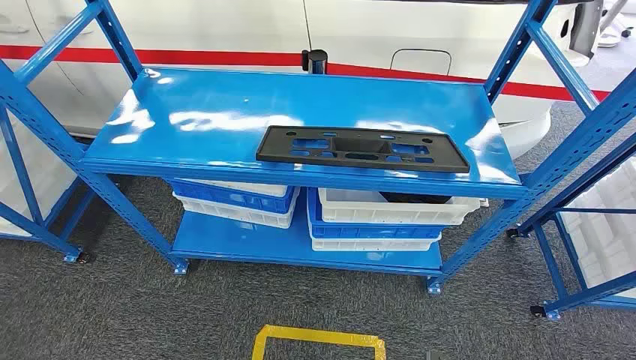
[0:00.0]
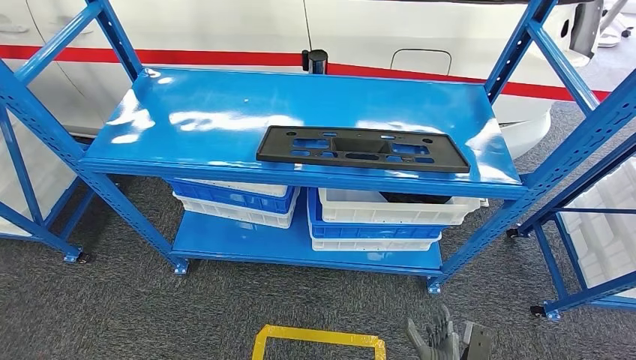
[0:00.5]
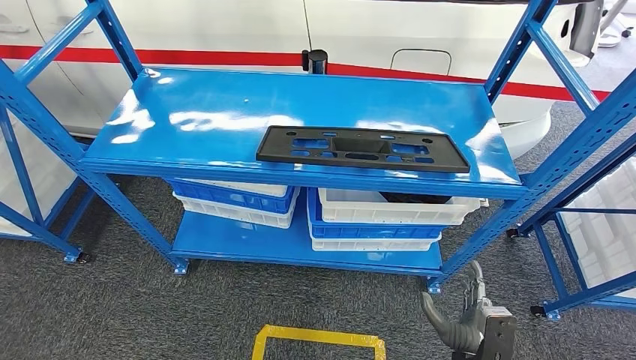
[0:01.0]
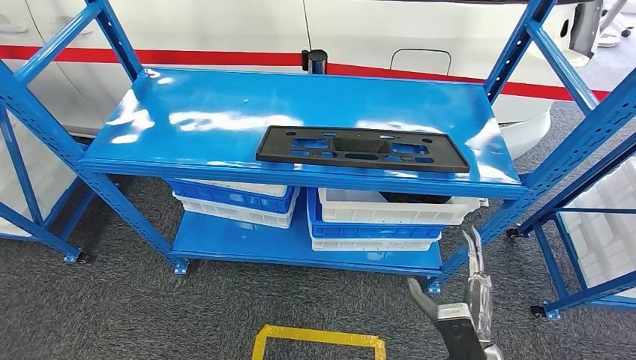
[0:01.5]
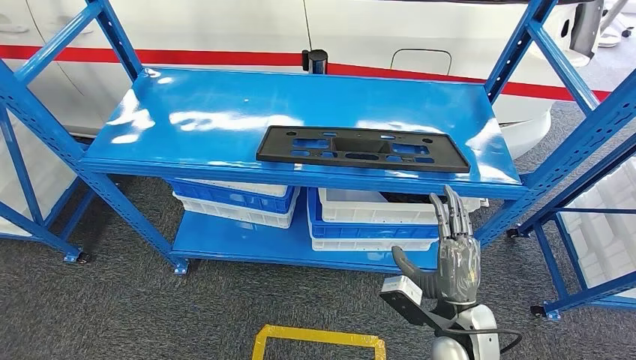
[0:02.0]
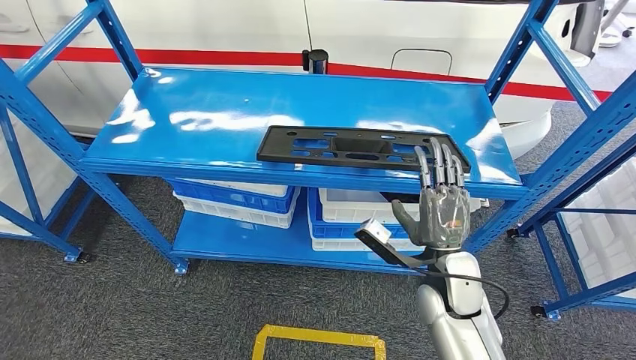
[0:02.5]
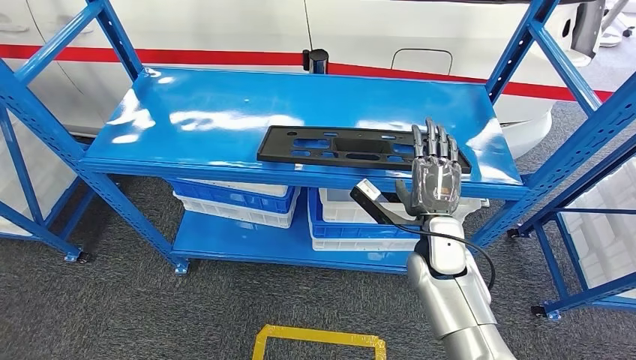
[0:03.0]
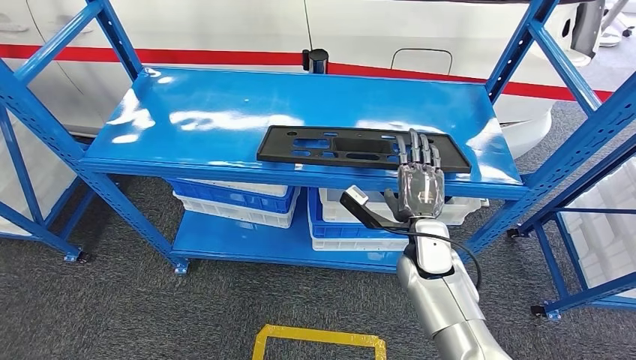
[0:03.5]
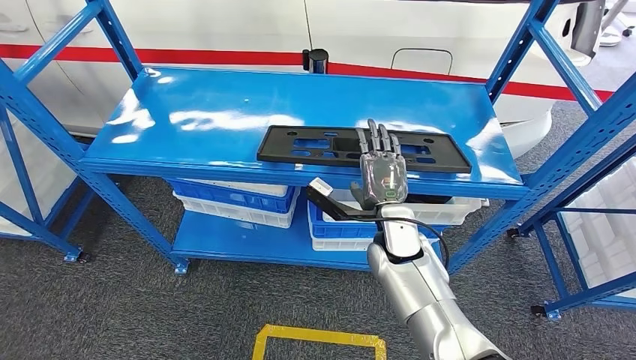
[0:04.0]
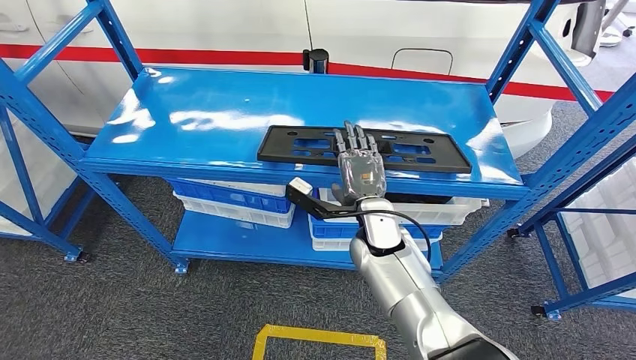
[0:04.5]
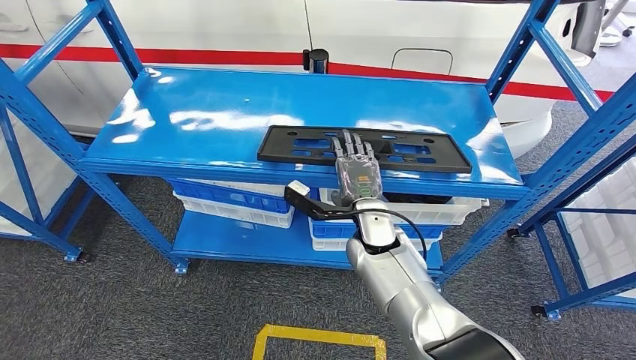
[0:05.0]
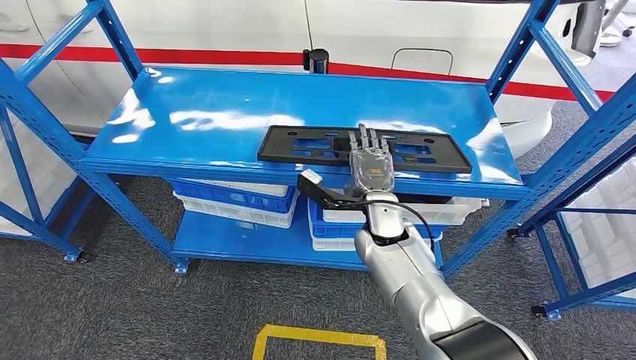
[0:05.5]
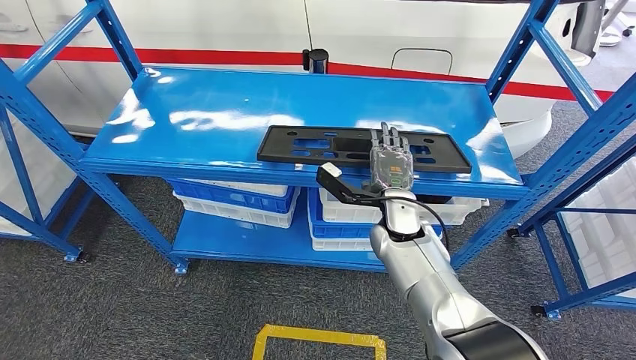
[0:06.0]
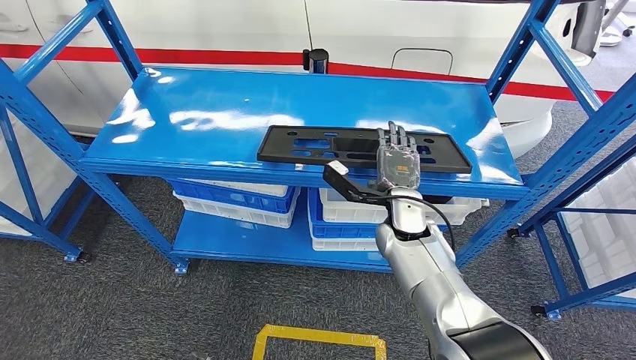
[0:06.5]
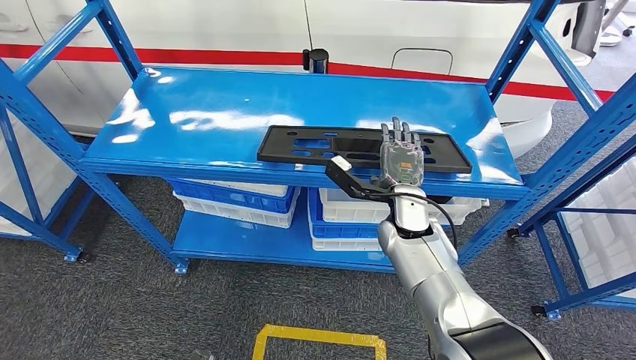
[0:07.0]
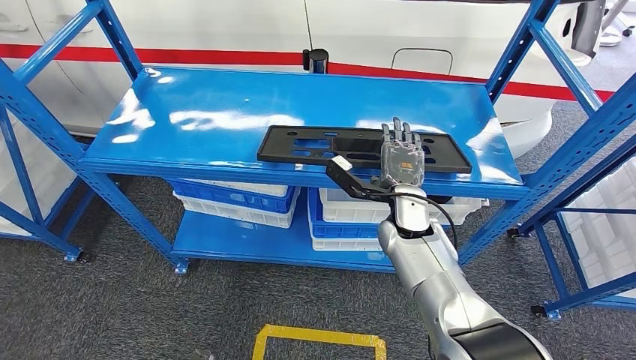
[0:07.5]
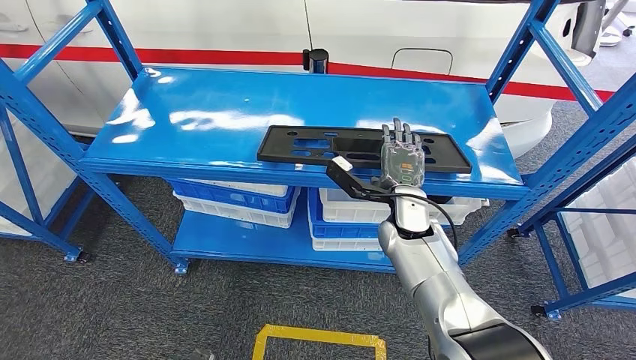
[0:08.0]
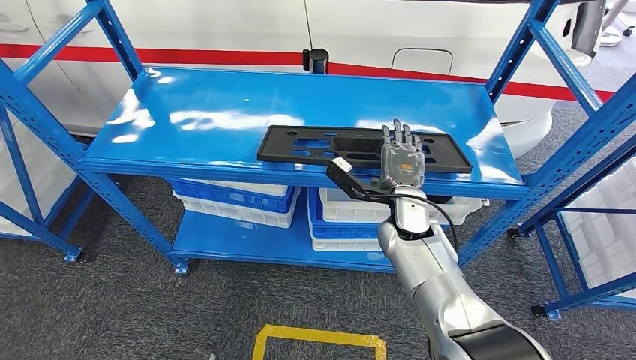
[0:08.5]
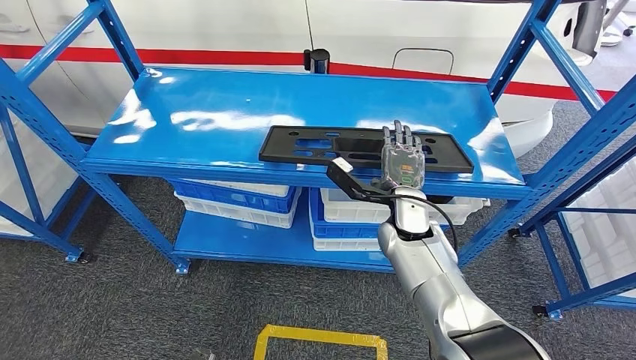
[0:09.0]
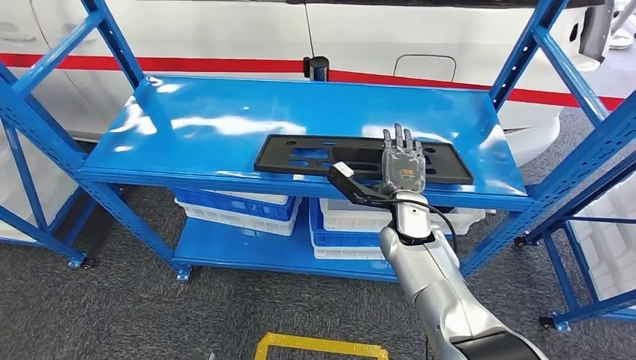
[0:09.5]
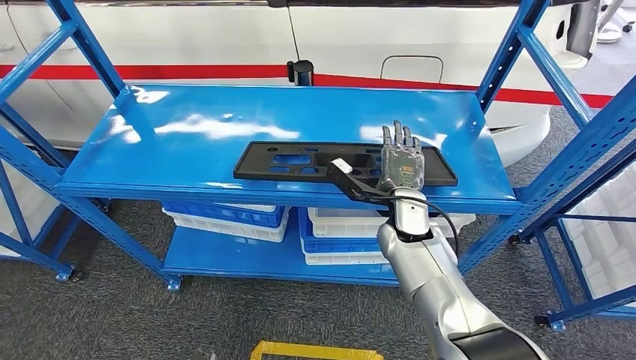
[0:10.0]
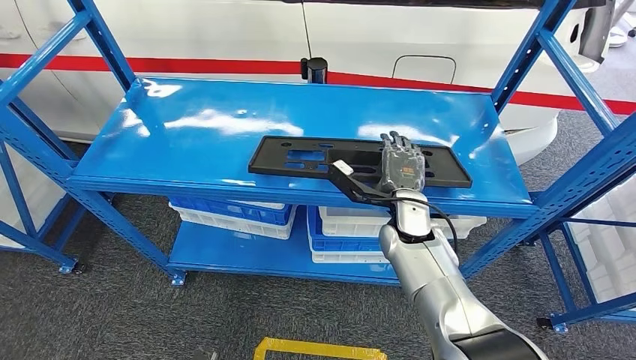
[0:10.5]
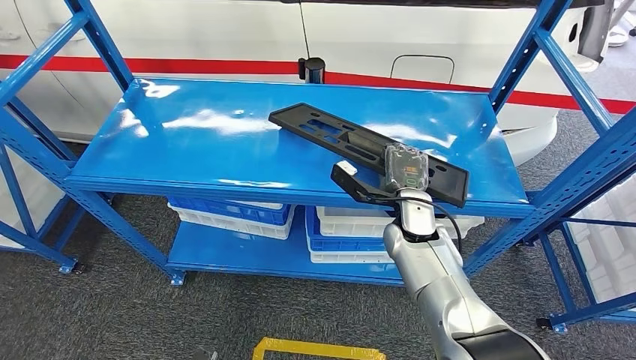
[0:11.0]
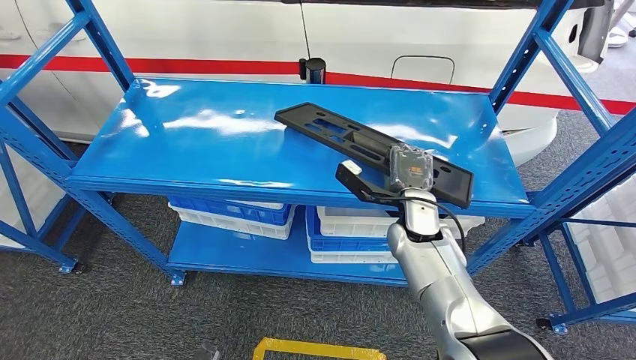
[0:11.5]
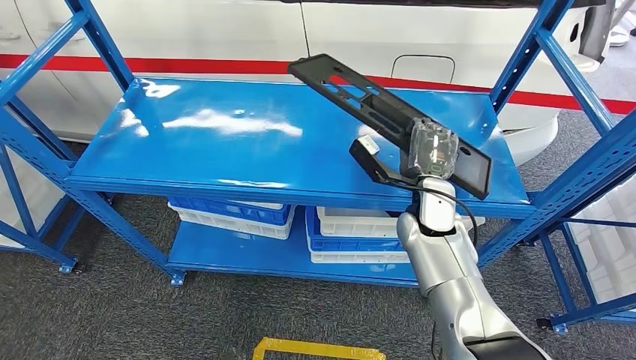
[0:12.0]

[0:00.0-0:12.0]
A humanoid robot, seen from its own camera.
0:02.0 to 0:04.0: The right hand shifts about 15 cm forward and to the left.
0:04.0 to 0:06.0: There are only small adjustments of the hands.
0:06.0 to 0:08.0: Both hands stay about where they are.

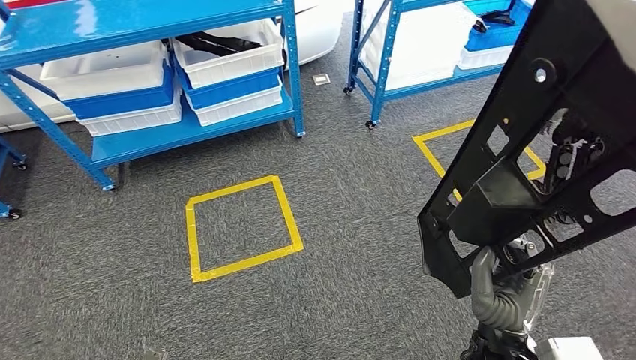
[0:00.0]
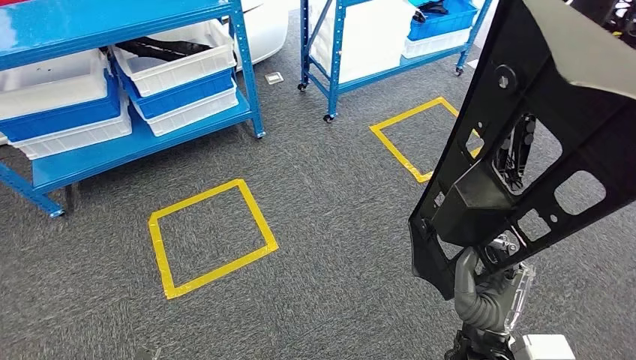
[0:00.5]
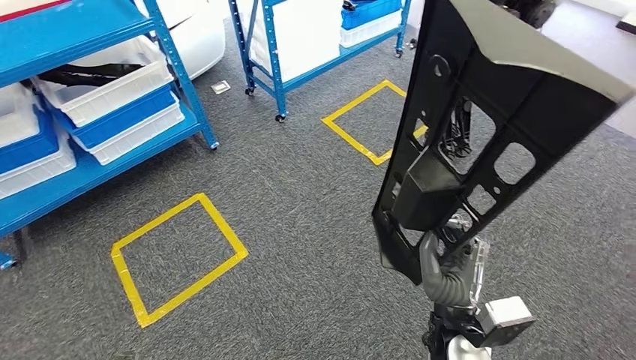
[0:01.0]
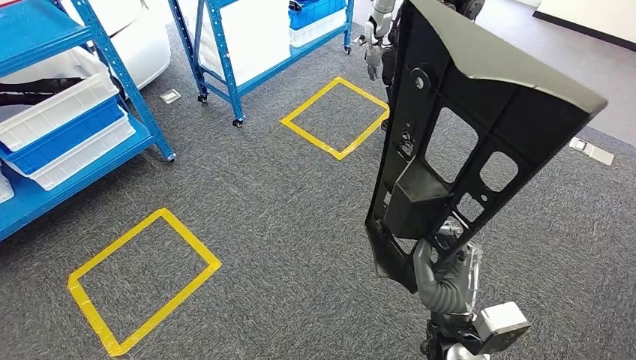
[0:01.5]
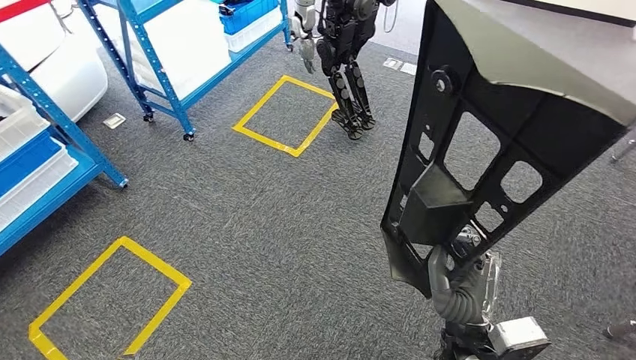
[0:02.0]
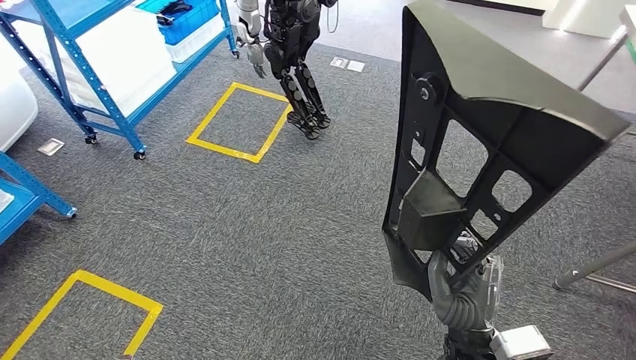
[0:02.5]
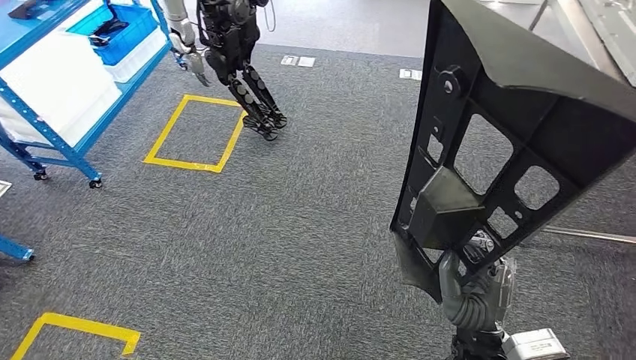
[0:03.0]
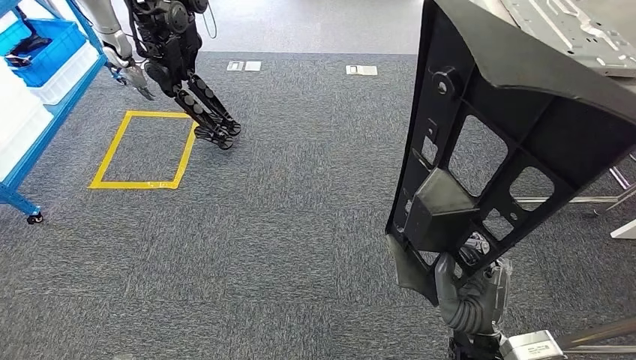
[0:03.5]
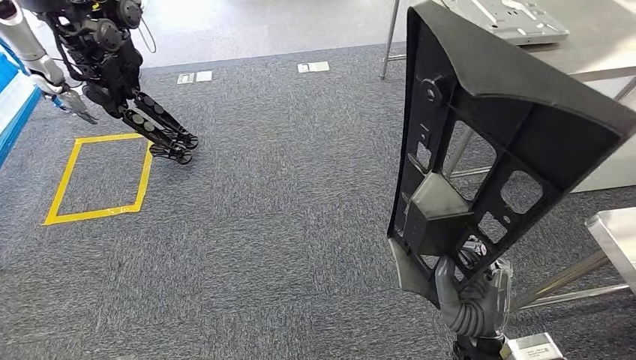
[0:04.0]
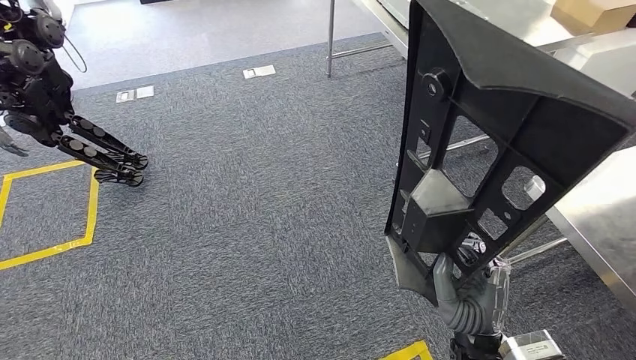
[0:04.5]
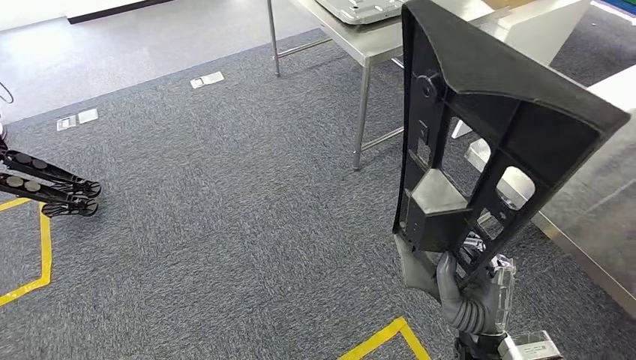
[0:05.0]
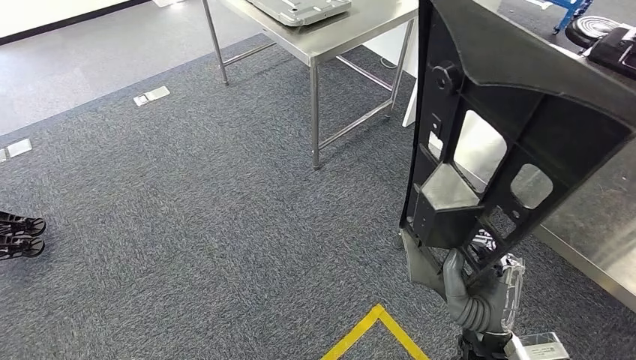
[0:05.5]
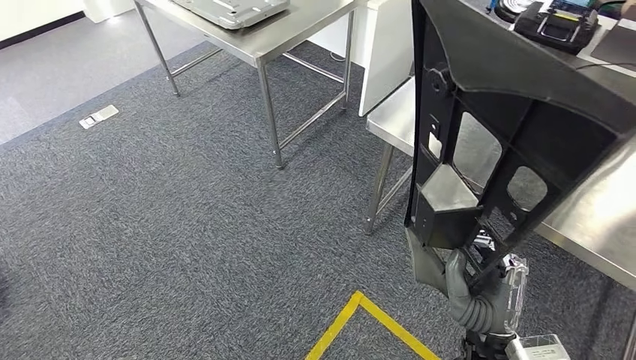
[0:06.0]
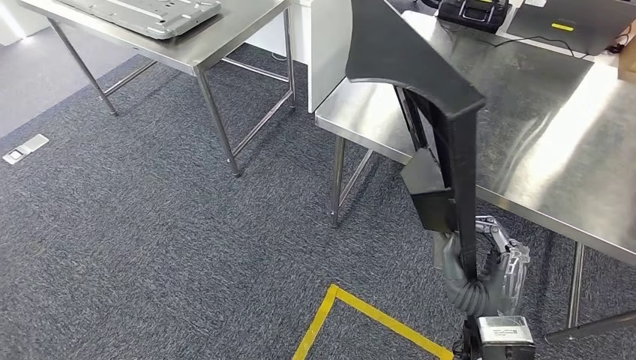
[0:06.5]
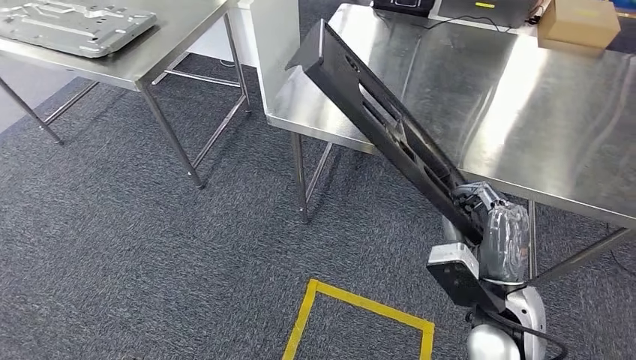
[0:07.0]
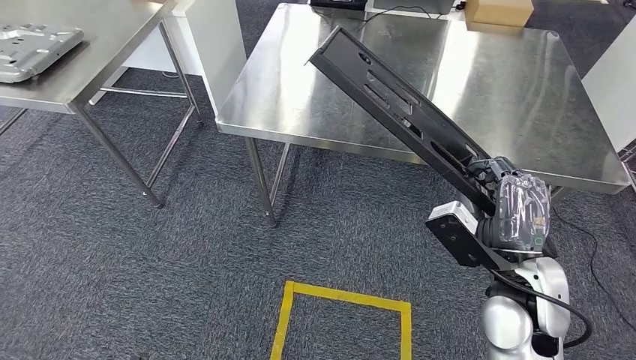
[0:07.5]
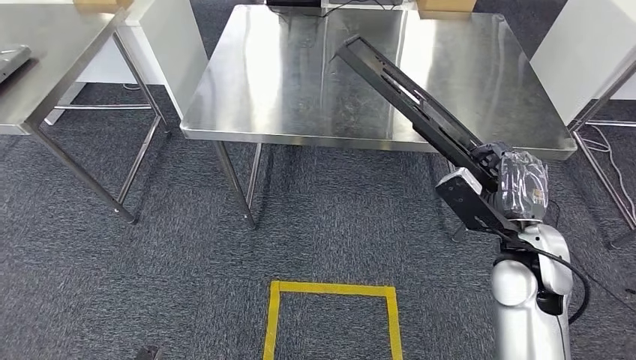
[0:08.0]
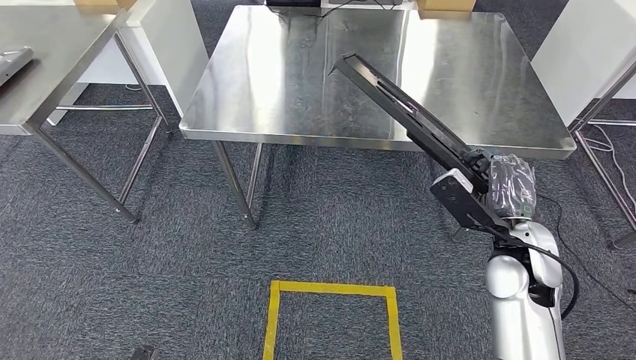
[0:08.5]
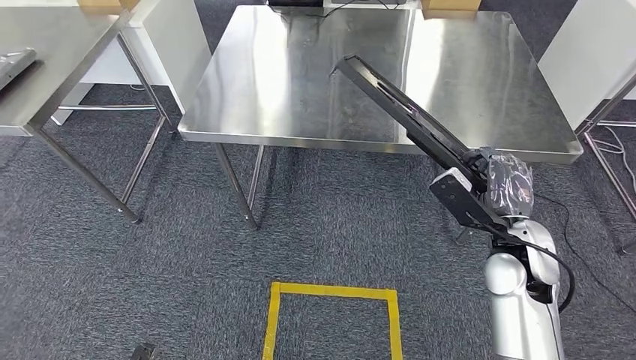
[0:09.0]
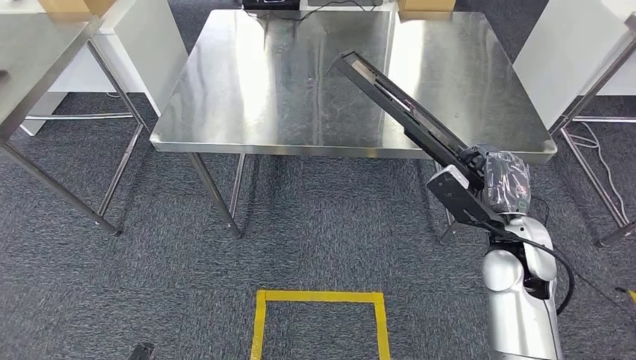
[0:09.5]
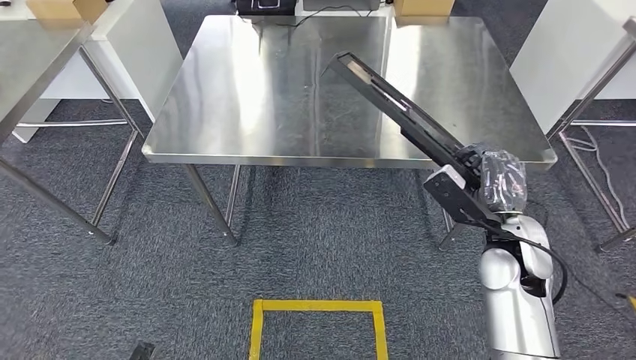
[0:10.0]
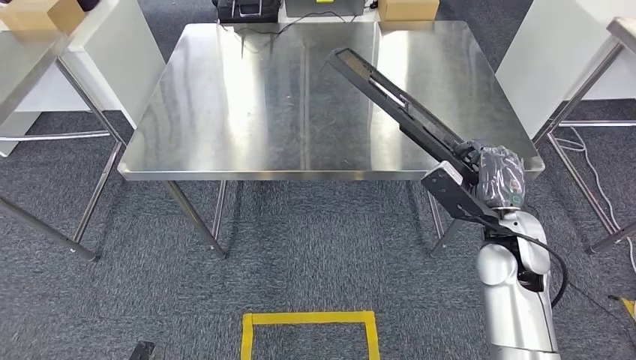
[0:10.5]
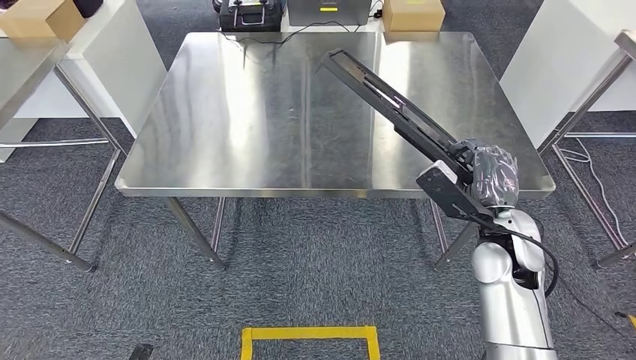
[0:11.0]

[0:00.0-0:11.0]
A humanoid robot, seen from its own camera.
Step, 0:00.0 to 0:07.5: Move the large material to the workbench.
